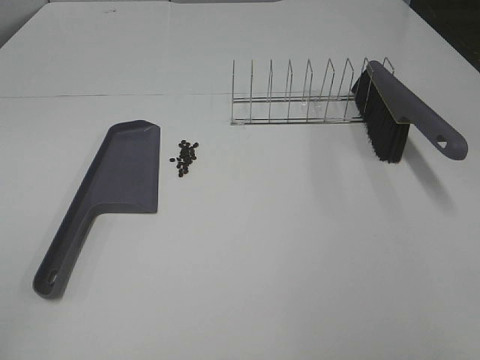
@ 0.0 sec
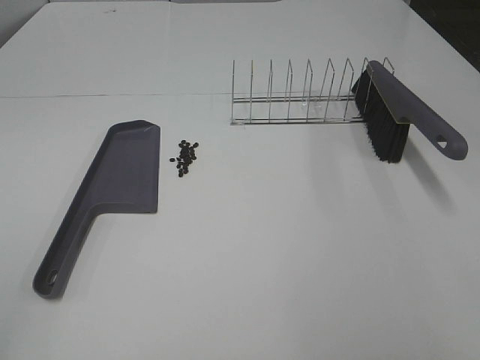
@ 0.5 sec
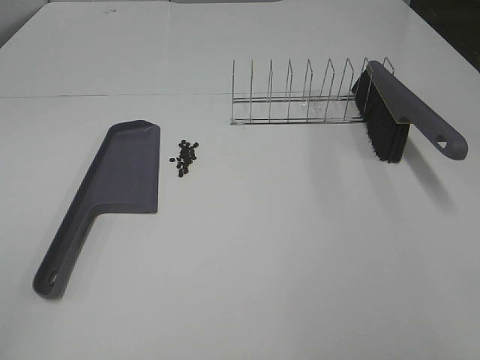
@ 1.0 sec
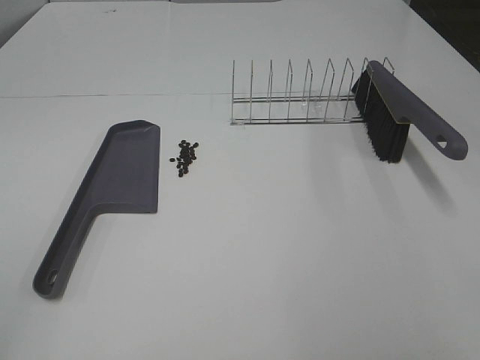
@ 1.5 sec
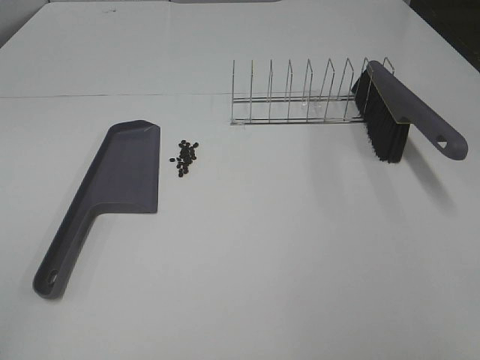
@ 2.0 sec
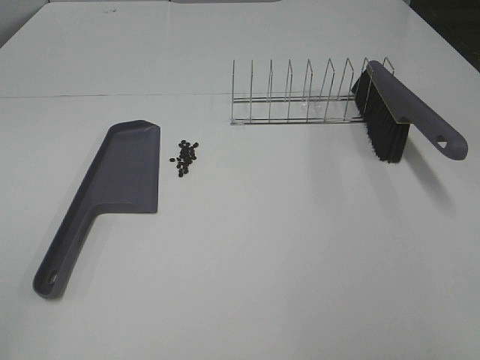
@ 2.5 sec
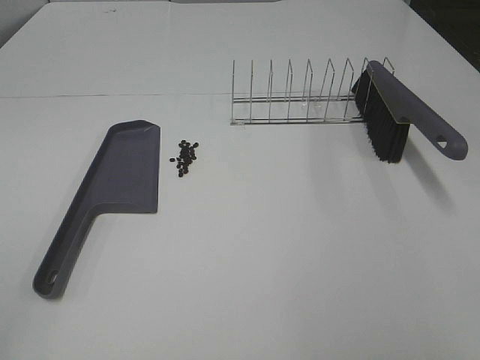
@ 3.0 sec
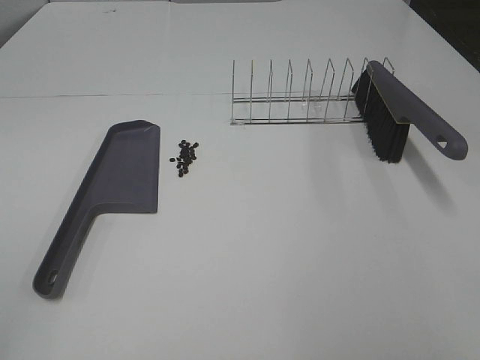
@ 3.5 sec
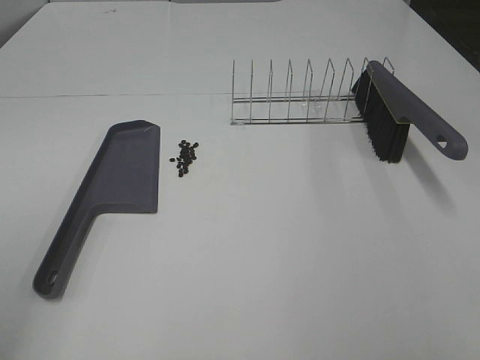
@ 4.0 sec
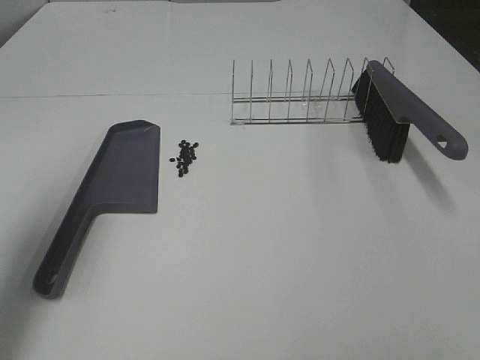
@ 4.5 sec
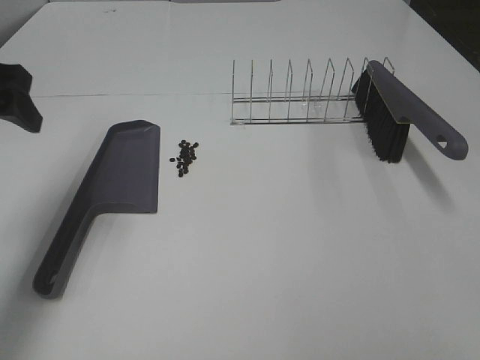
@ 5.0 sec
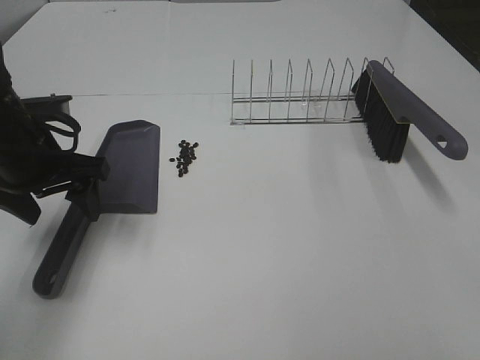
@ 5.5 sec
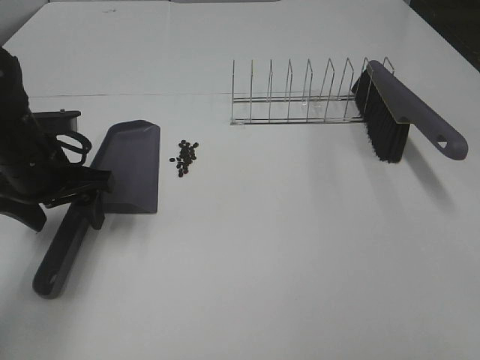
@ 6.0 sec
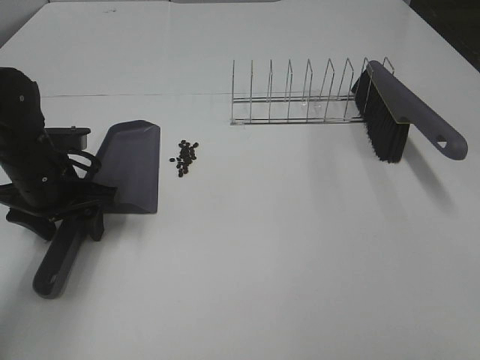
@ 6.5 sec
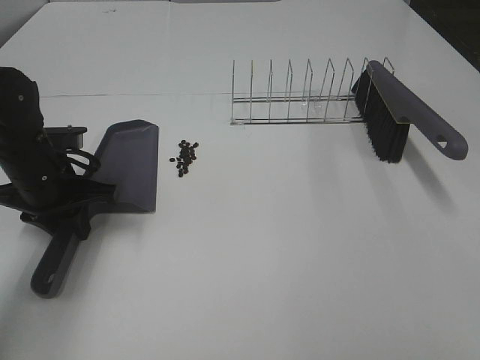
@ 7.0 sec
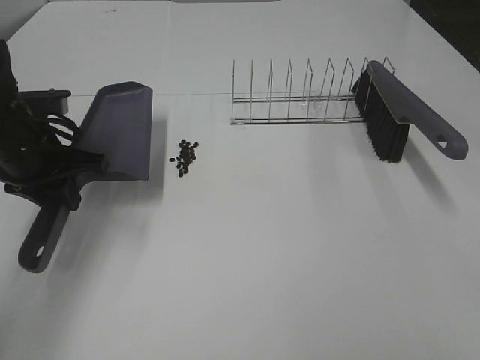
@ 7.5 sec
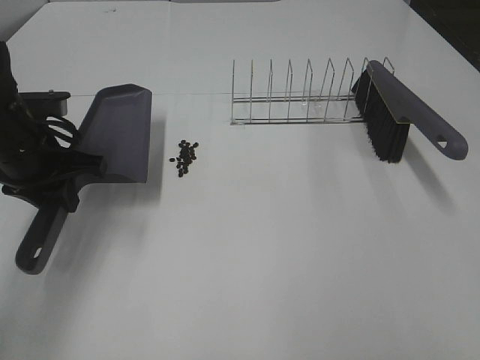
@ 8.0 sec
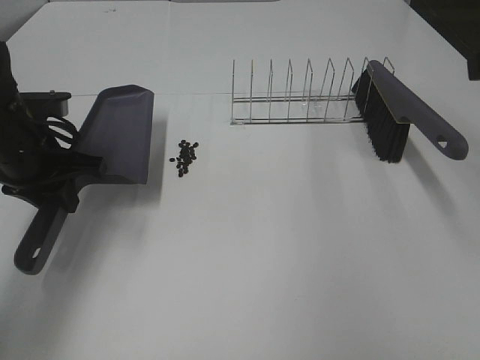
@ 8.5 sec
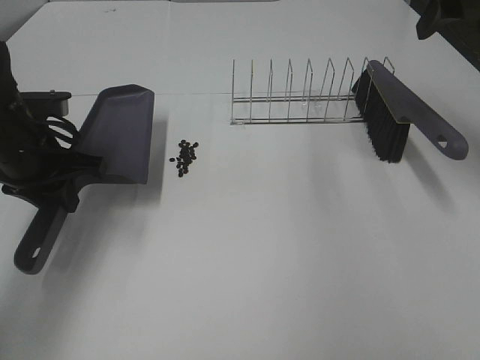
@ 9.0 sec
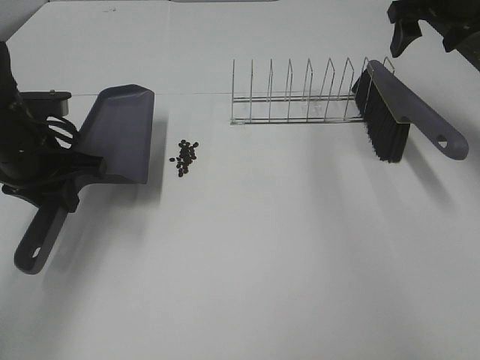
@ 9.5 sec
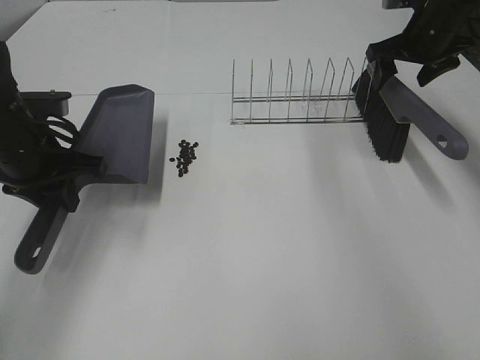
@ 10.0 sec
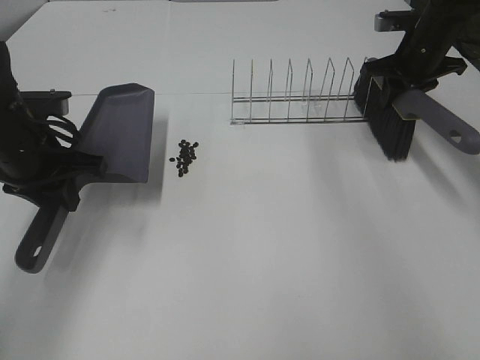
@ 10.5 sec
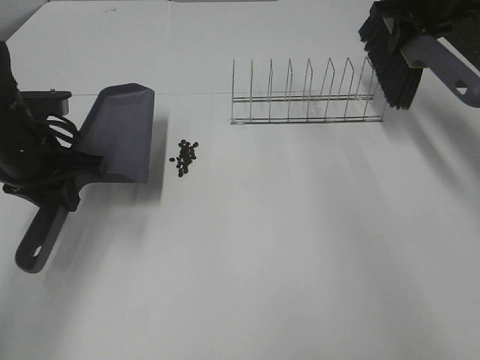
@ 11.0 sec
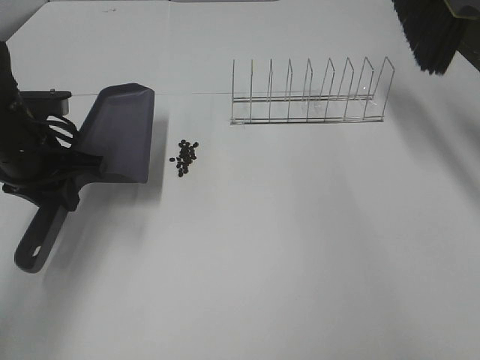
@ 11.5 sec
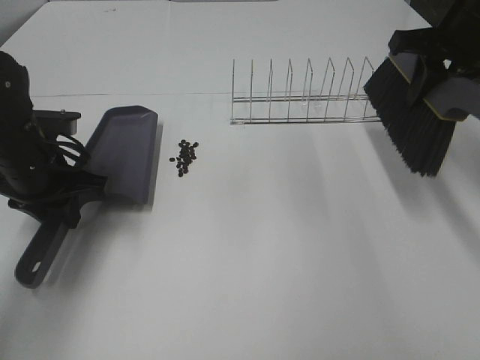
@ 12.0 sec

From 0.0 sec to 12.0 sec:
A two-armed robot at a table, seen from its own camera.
Task of the whole recording: Sweep Coffee Bean.
Step, from 0.0 sec to 6.5 sec: Left hand: grab the dustpan.
Step, from 8.0 sec to 10.0 sec: Right hand:grab the broom.
From 0.0 sec to 2.0 sec: Both grippers stay put.
From 4.0 sec to 6.0 sec: The left gripper is displaced forward and downward by roughly 30 cm.
From 6.0 sec to 8.0 sec: The left gripper closes its fingers.
From 8.0 sec to 10.0 sec: The right gripper shifts roughly 50 cm forward.
From 10.0 sec to 12.0 sec: The right gripper heads backward and upward, covering approximately 15 cm, and closes up.

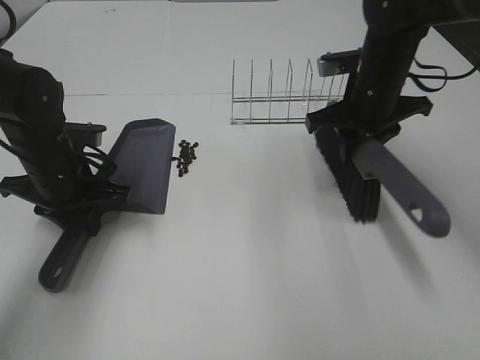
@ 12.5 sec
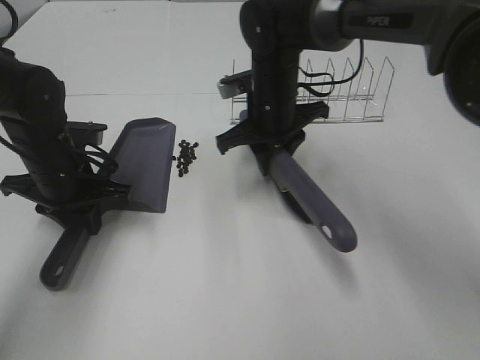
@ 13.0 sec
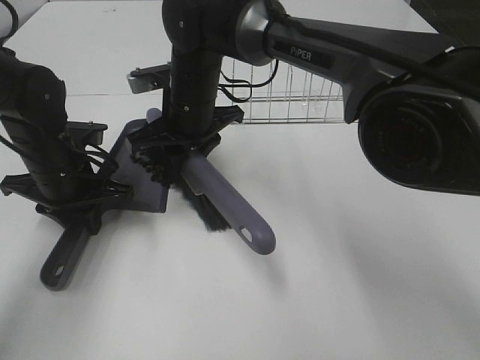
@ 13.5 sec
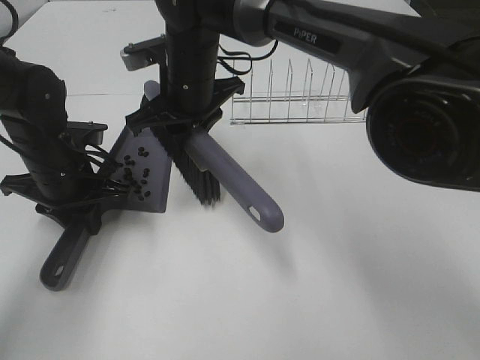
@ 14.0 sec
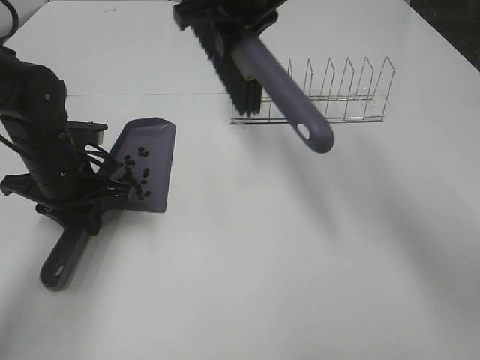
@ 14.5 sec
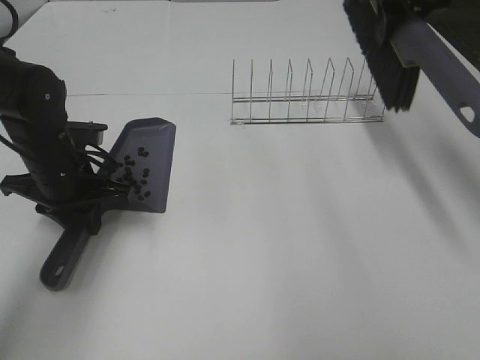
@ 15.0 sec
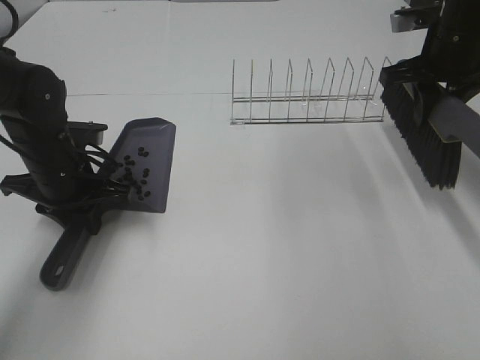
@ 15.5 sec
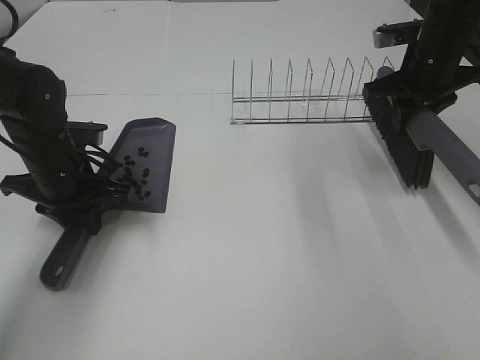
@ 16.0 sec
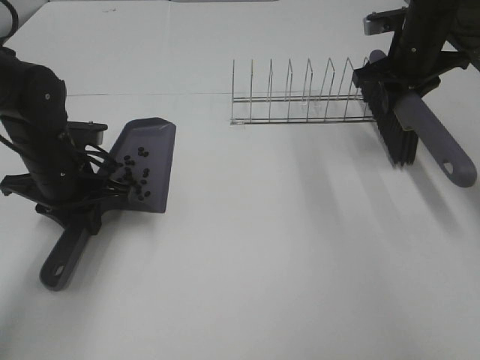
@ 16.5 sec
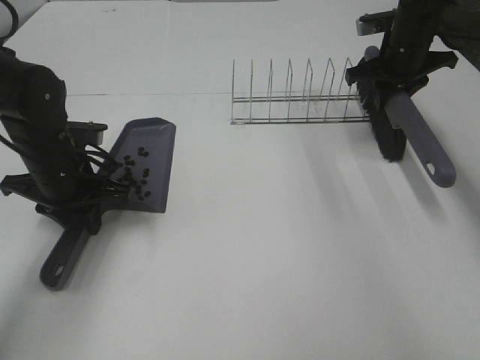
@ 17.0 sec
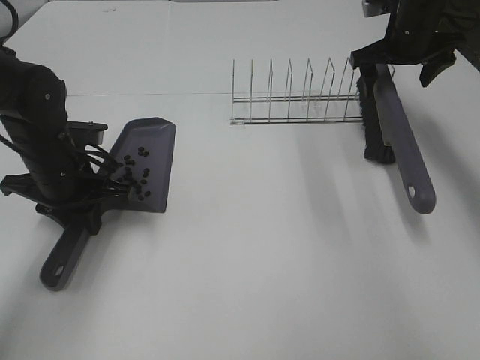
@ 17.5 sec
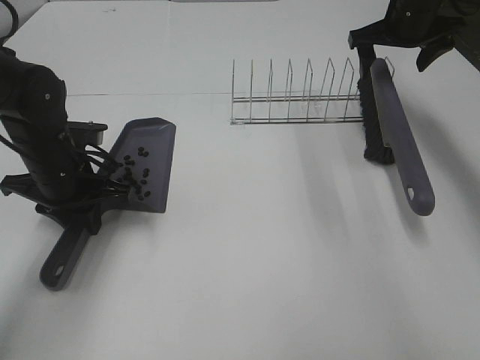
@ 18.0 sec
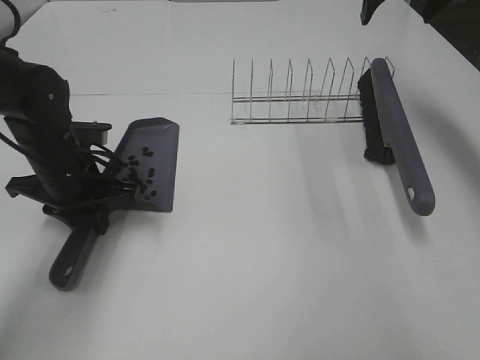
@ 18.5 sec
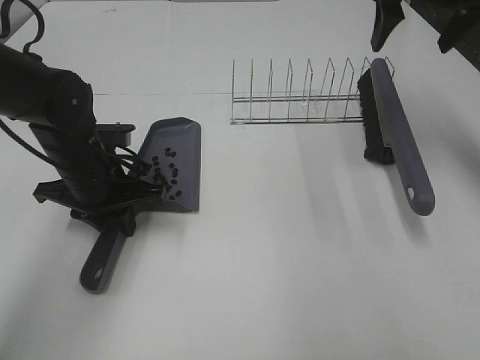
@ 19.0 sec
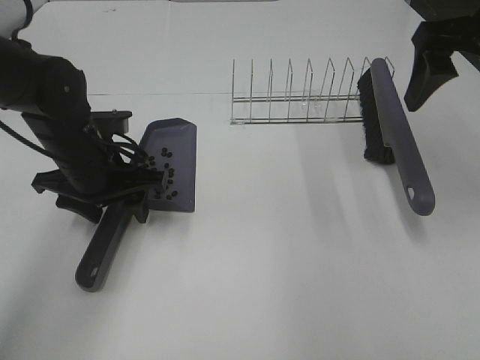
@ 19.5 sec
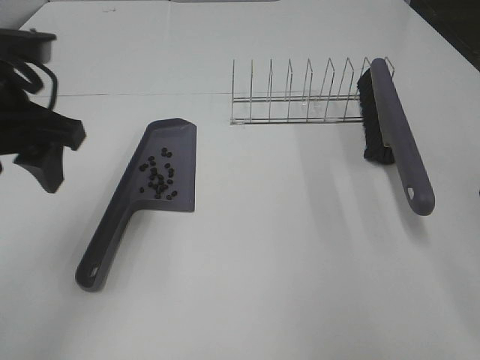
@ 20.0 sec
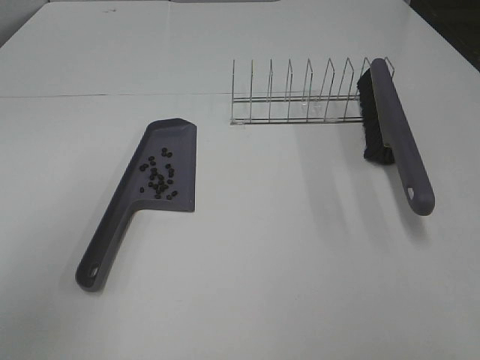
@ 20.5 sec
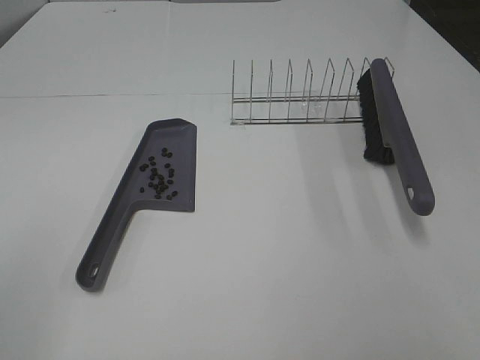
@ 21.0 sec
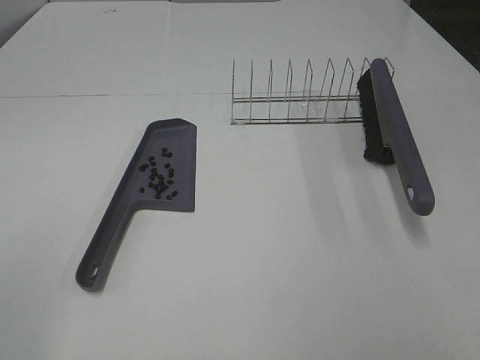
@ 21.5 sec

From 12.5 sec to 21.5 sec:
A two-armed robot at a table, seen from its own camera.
Task of the whole recording: Sweep Coffee Bean.
Step, from 14.0 sec to 17.0 sec: Right hand:place the broom on the rack.
Step, from 17.5 sec to 19.5 sec: Left hand:place the dustpan on the table.
From 12.5 sec to 14.5 sec: The right gripper shifts some 20 cm to the left and upward.
From 14.5 sec to 17.0 sec: The right gripper heads to the right and downward, covering roughly 25 cm.
From 17.0 sec to 19.5 sec: The left gripper opens its fingers. Meanwhile the right gripper goes some 25 cm backward and upward, and opens up.
From 19.5 sec to 21.5 sec: The right gripper shifts approximately 30 cm backward; the left gripper goes roughly 40 cm backward, to the left and upward.

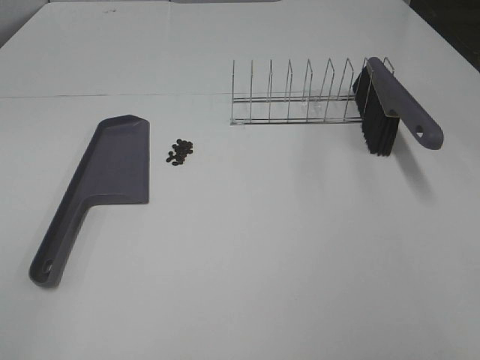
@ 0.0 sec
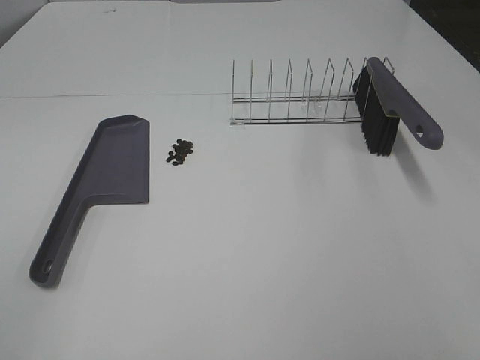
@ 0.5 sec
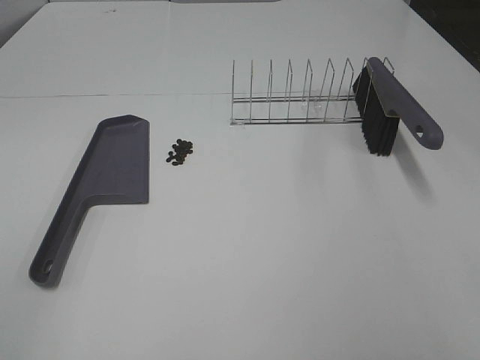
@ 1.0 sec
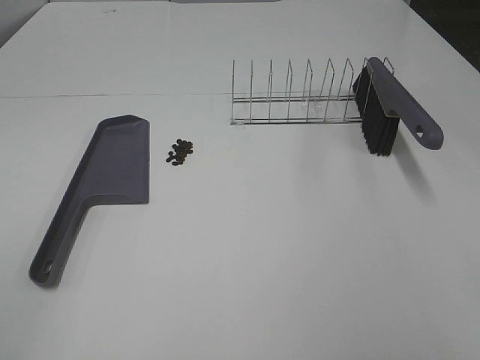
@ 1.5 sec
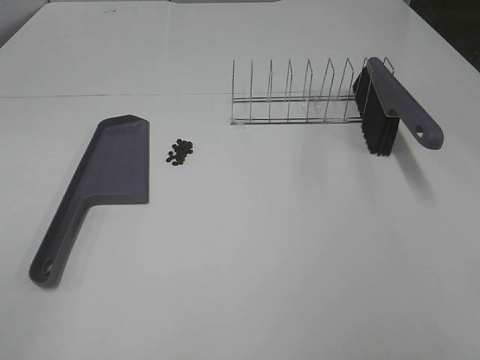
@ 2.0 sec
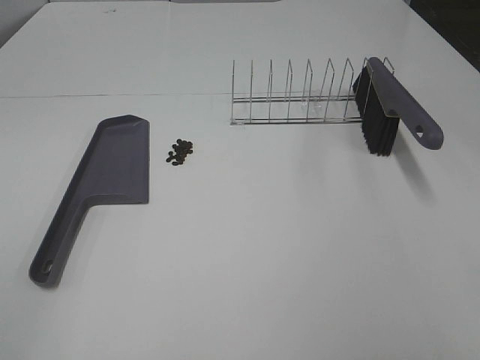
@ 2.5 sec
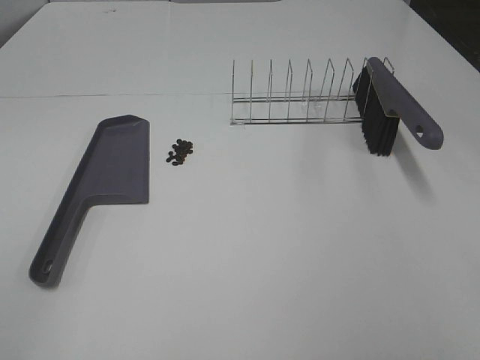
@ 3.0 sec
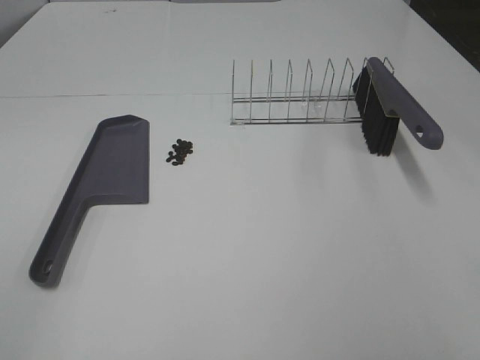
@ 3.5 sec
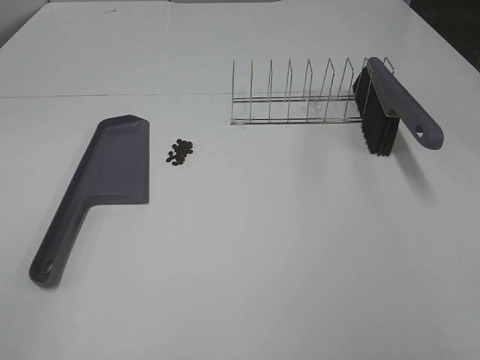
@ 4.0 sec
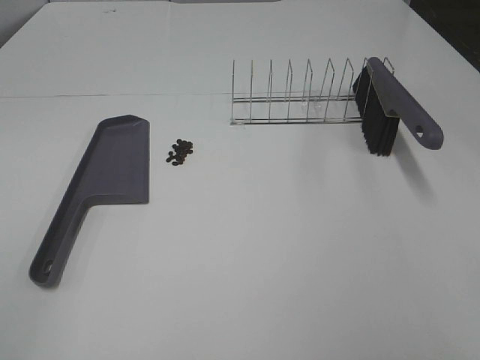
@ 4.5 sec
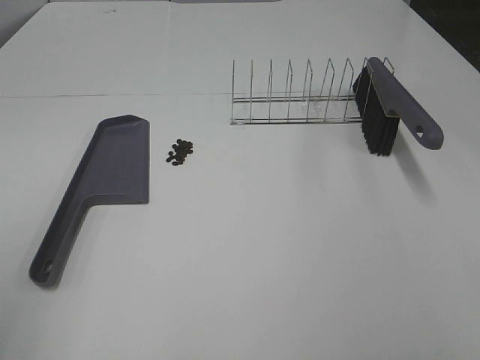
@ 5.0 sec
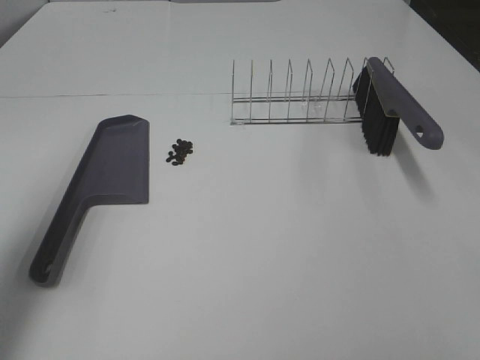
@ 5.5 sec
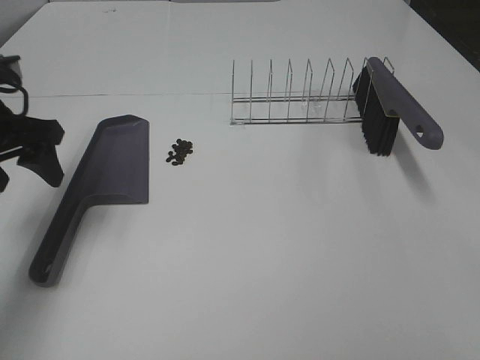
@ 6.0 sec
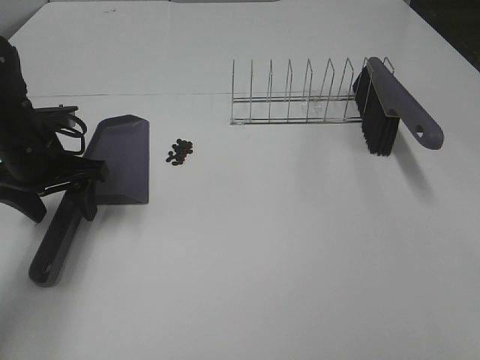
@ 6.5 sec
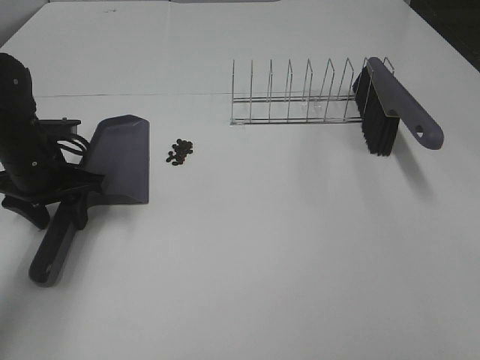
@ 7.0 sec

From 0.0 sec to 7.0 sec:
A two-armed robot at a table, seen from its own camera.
Task of the whole recording: Sweep Coffee Bean.
From 0.0 sec to 3.5 sec: The two grippers keep their place.
From 5.0 sec to 7.0 sec: The left gripper goes about 35 cm forward and downward, and closes its fingers.
